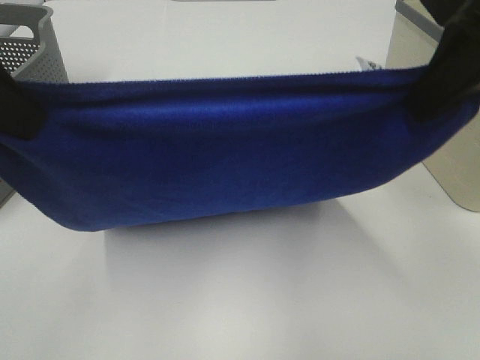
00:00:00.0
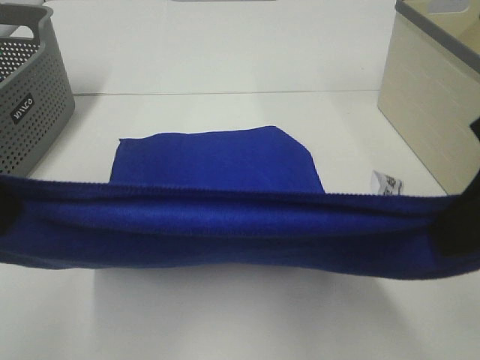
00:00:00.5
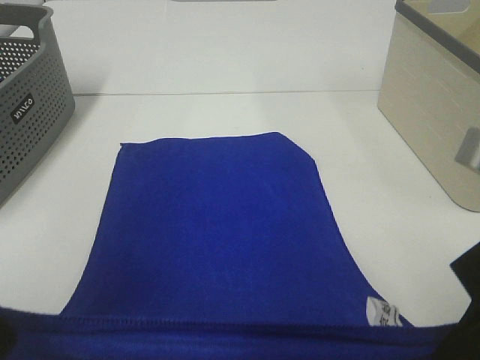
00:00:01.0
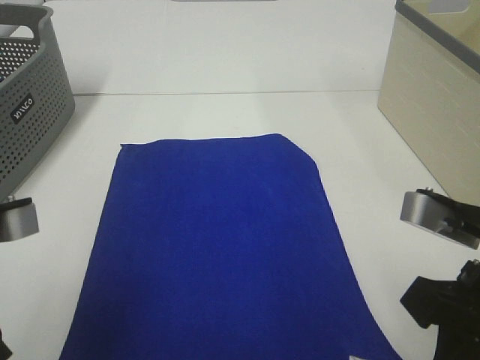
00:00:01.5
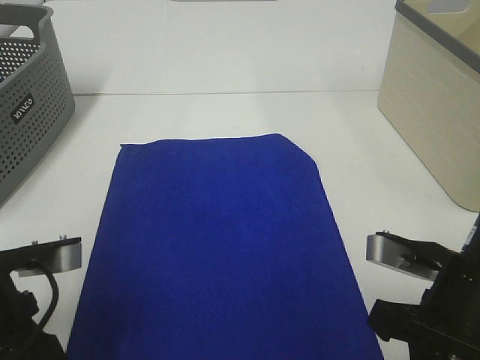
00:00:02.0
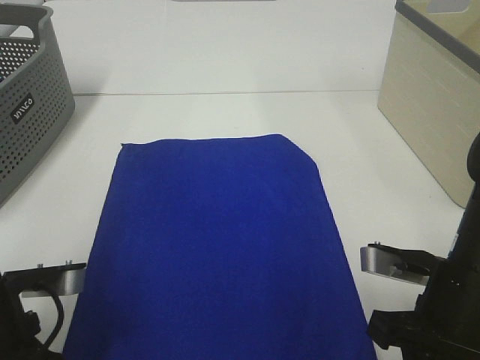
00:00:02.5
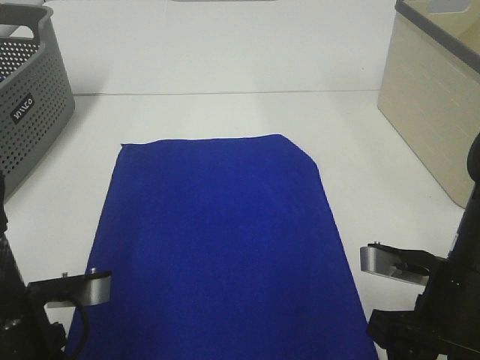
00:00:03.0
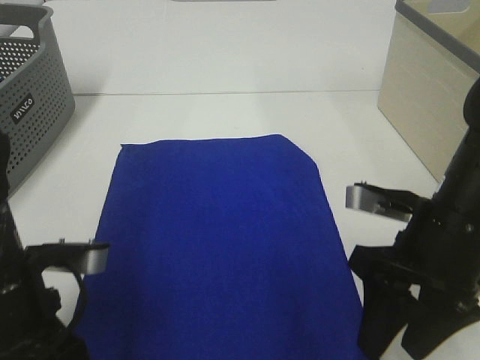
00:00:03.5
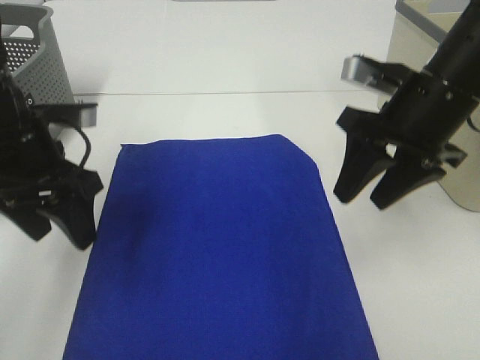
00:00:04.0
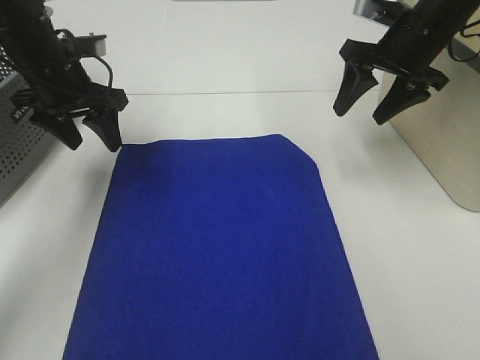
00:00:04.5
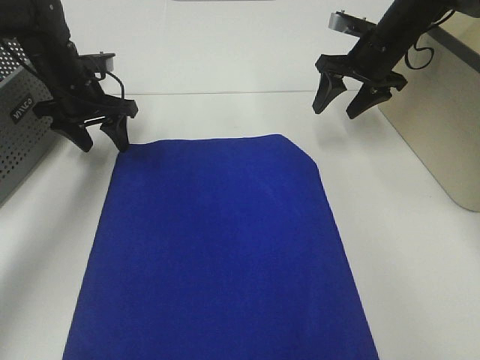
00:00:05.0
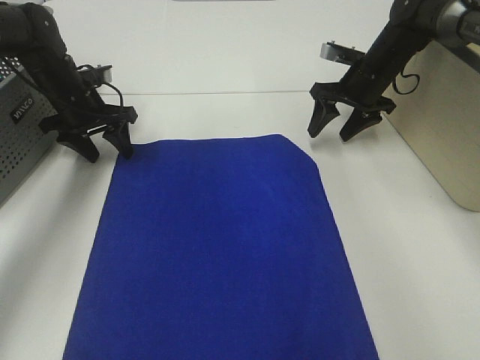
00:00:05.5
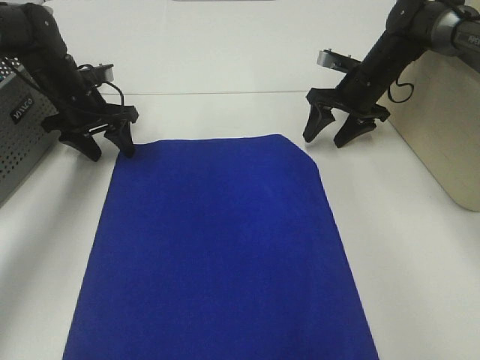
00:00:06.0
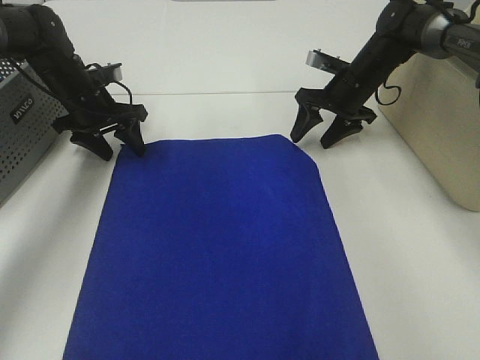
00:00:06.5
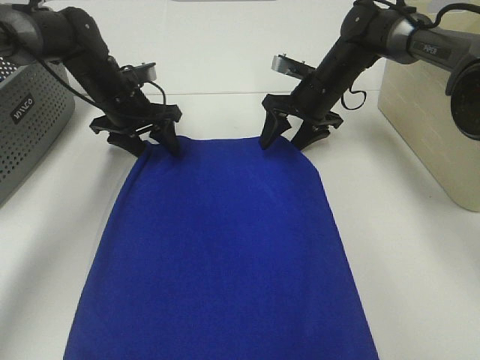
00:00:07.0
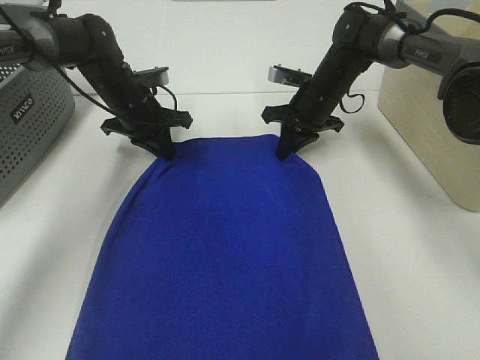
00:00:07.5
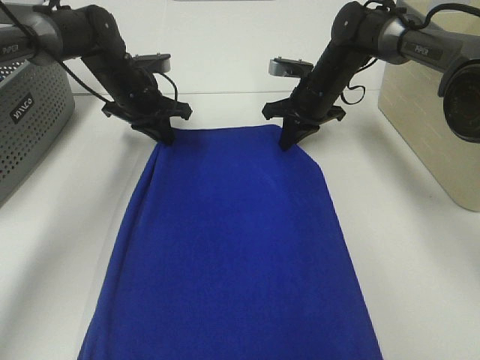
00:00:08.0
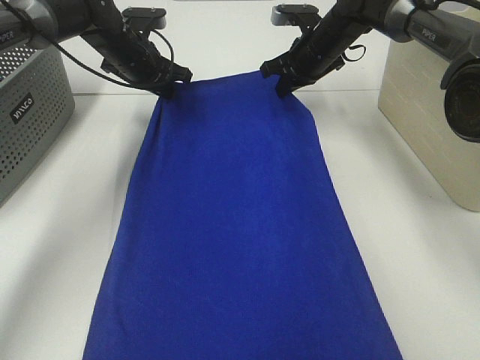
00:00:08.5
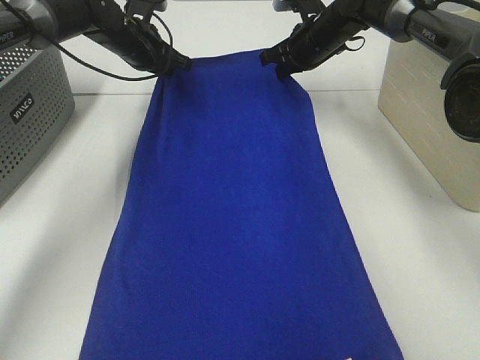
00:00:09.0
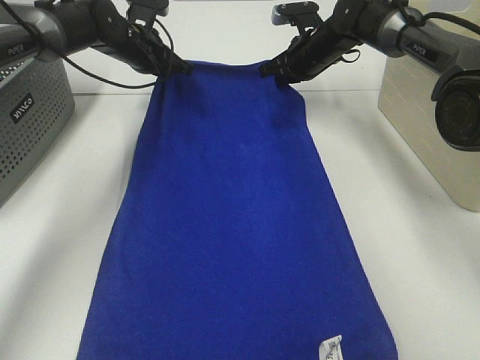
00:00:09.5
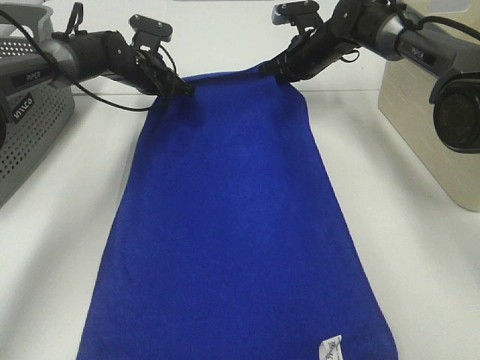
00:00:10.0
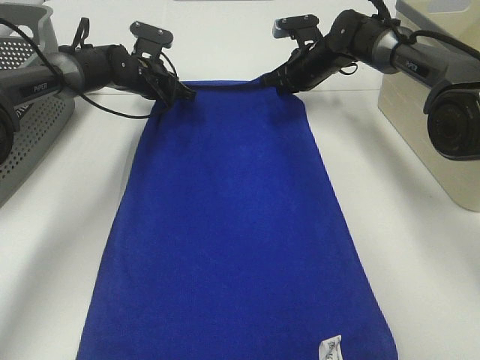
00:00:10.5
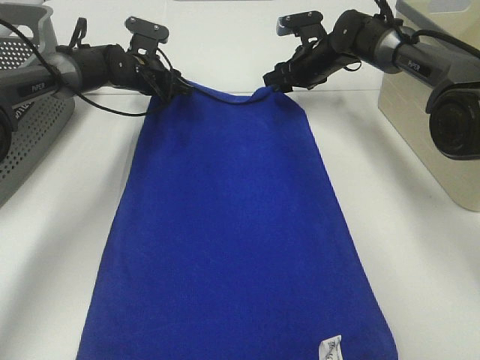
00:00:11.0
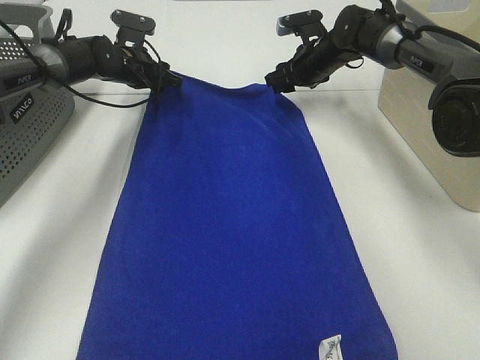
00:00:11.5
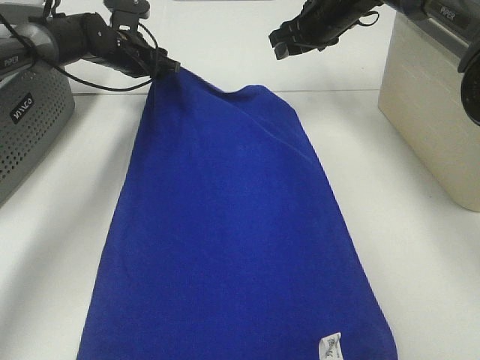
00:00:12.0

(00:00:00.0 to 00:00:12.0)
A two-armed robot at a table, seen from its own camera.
Task of the whole recording: Remove the towel and place it.
Step, 00:00:00.0 - 00:00:05.0: Left hand:adjust the blue towel.
Step, 00:00:00.0 - 00:00:05.0: Right hand:adjust the blue towel.
00:00:00.0 - 00:00:02.0: The grippers both shift downward by about 20 cm.
00:00:02.0 - 00:00:04.0: The left gripper travels forward by roughly 15 cm, and opens. The right gripper moves forward and upward, roughly 15 cm, and opens its fingers.
00:00:04.0 - 00:00:06.0: Both grippers move forward and downward, about 25 cm.
00:00:06.0 - 00:00:08.0: The left gripper goes about 10 cm to the right, and closes its fingers; the right gripper travels to the left by about 5 cm, and closes up.
00:00:08.0 - 00:00:10.0: Both grippers travel together forward, about 5 cm.
00:00:10.0 - 00:00:12.0: The right gripper heads upward, covering roughly 5 cm, and opens its fingers. Meanwhile the left gripper opens up.

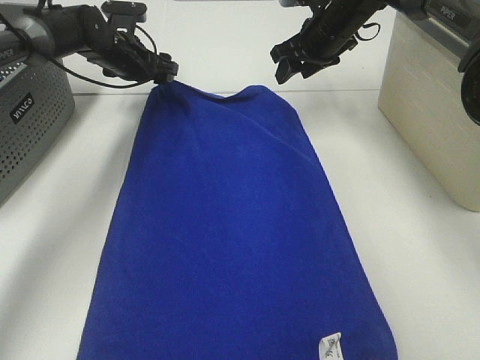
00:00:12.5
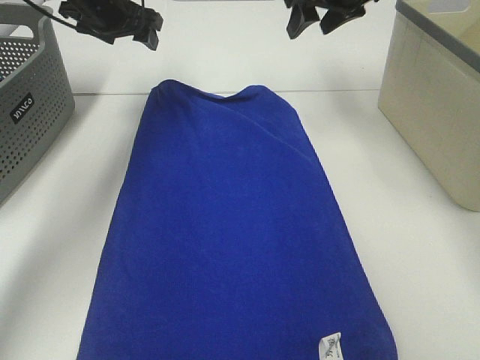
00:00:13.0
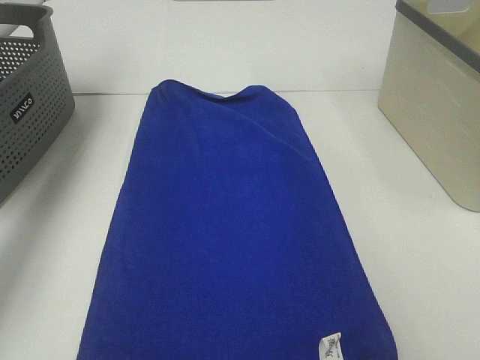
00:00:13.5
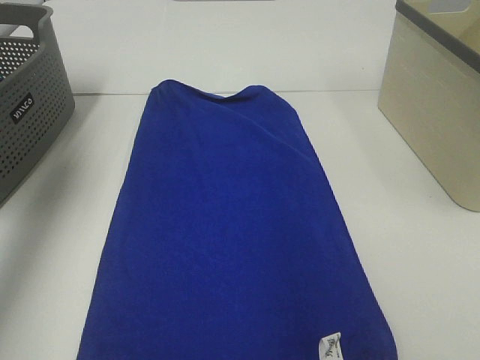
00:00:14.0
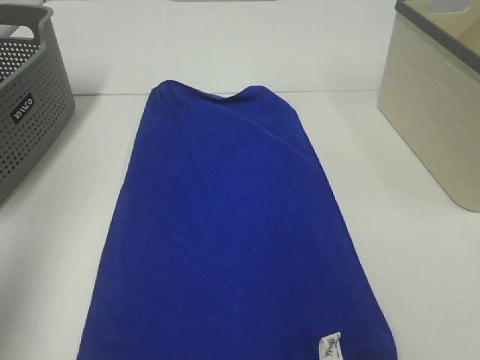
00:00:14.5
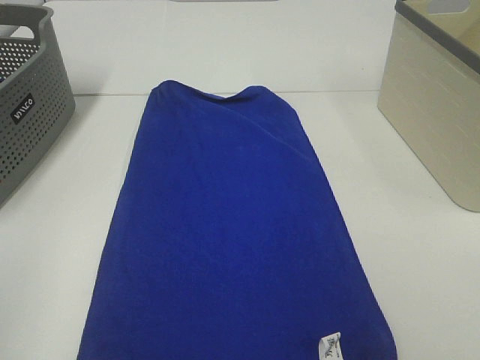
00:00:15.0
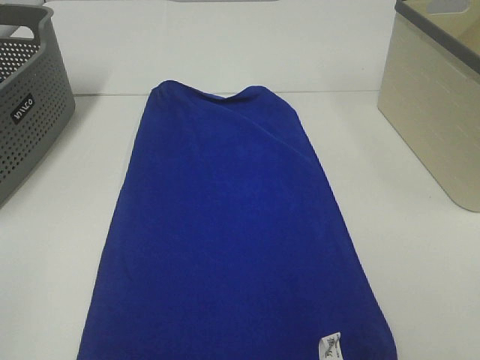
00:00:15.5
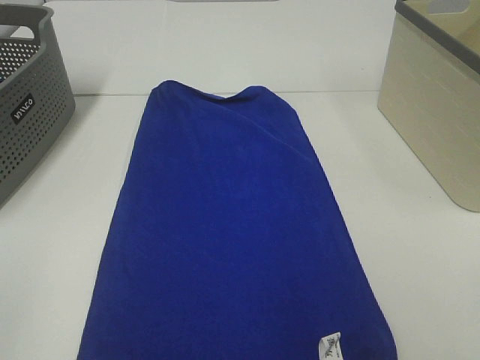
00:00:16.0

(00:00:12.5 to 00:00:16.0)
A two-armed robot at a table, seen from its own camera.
Task of the whole recording: Remove the towel and place it.
00:00:12.5 - 00:00:14.5: Both grippers move backward and upward, approximately 50 cm.
00:00:14.5 - 00:00:16.0: The left gripper travels backward and downward by some 20 cm.

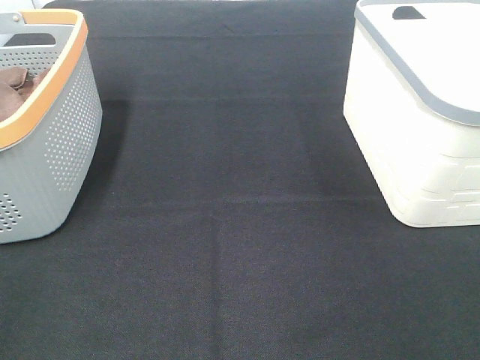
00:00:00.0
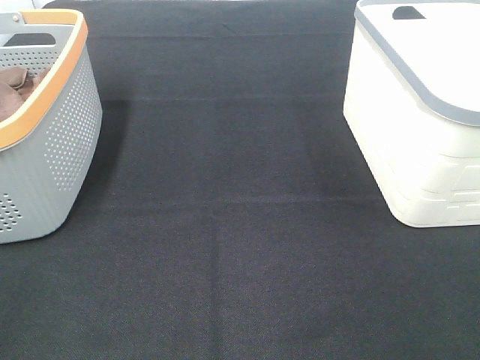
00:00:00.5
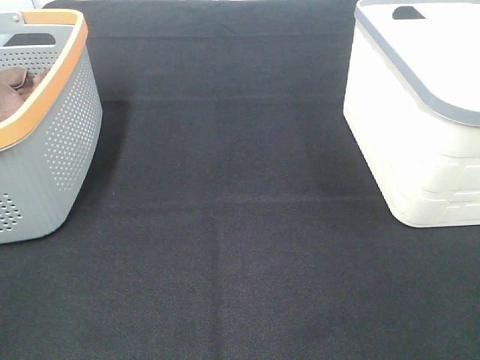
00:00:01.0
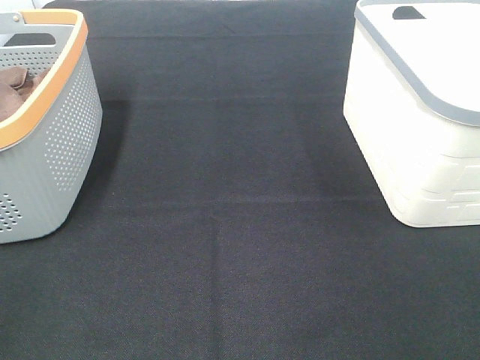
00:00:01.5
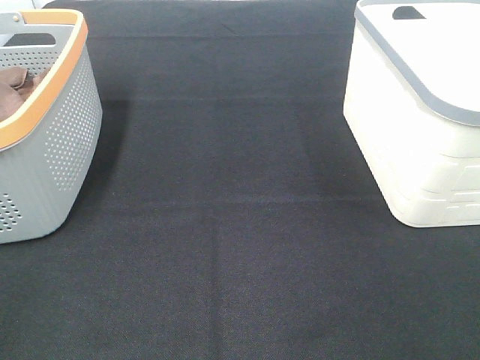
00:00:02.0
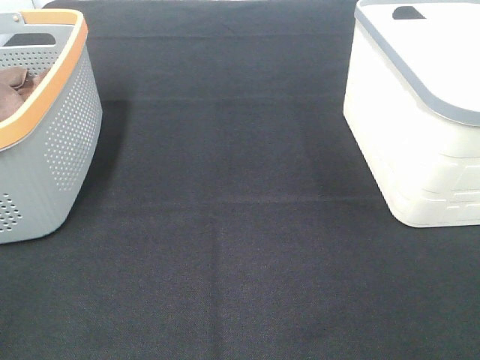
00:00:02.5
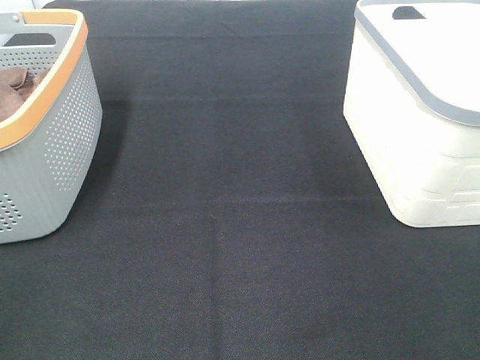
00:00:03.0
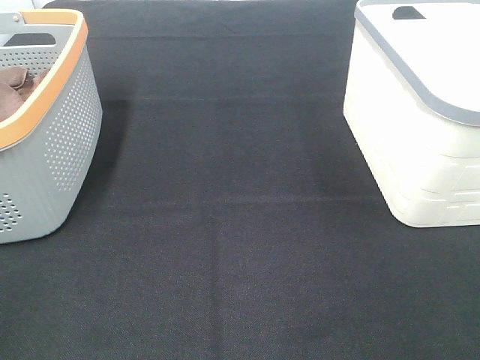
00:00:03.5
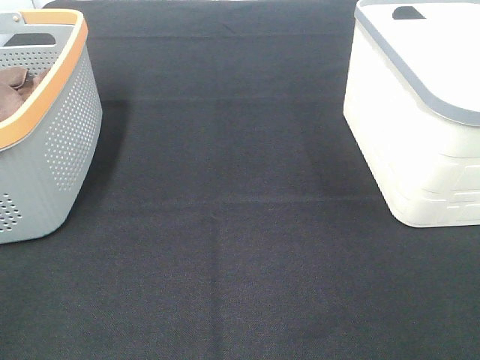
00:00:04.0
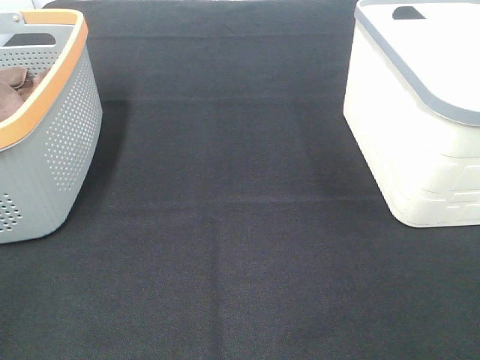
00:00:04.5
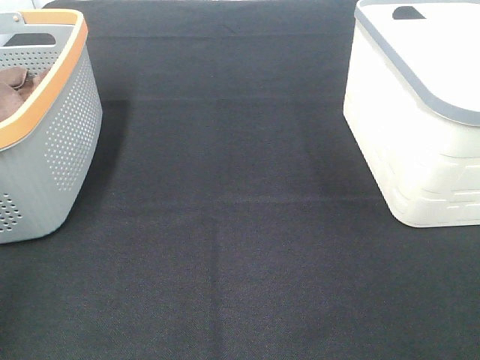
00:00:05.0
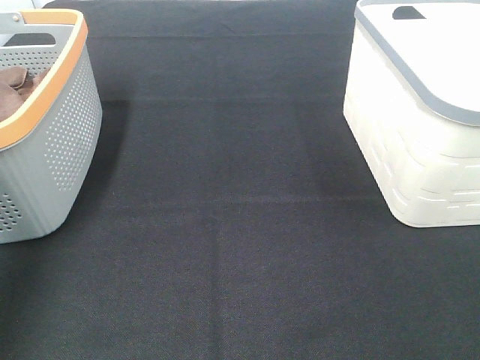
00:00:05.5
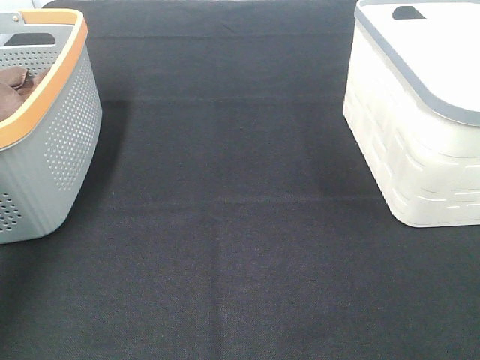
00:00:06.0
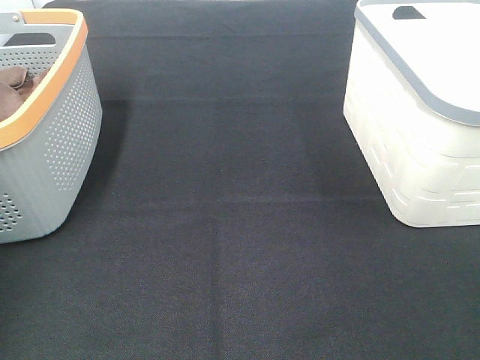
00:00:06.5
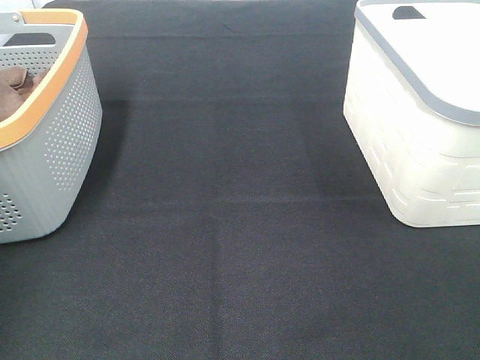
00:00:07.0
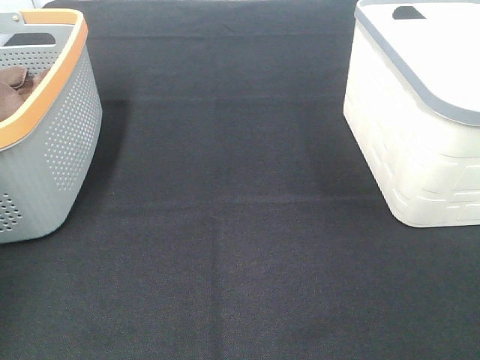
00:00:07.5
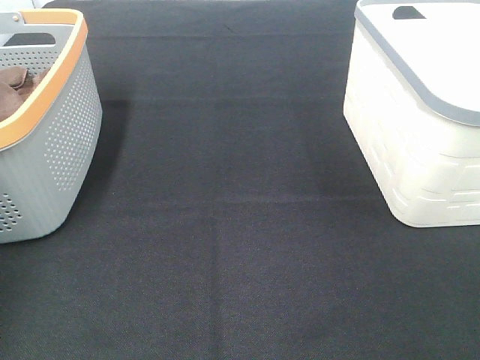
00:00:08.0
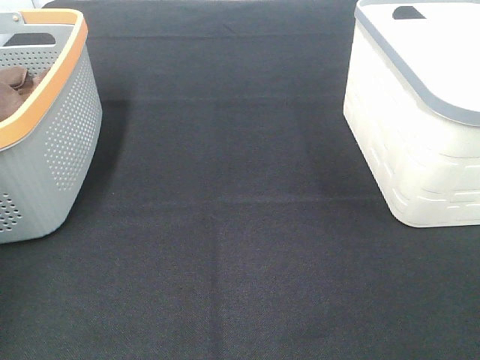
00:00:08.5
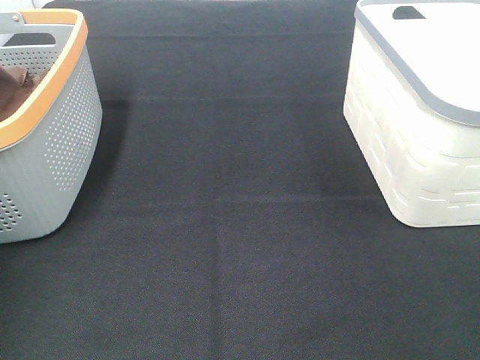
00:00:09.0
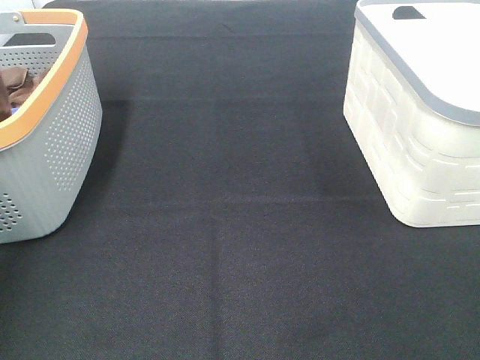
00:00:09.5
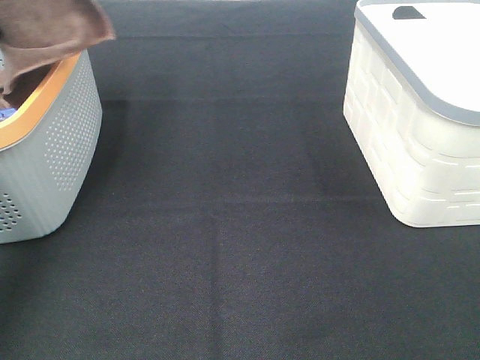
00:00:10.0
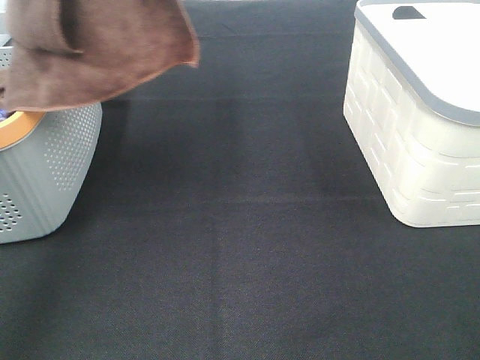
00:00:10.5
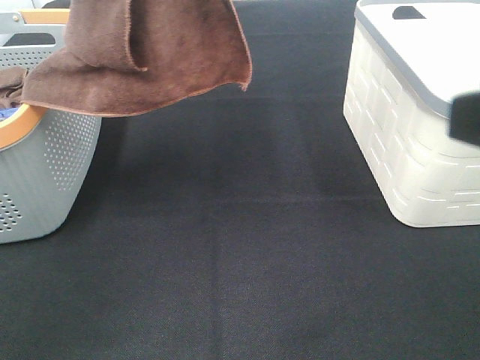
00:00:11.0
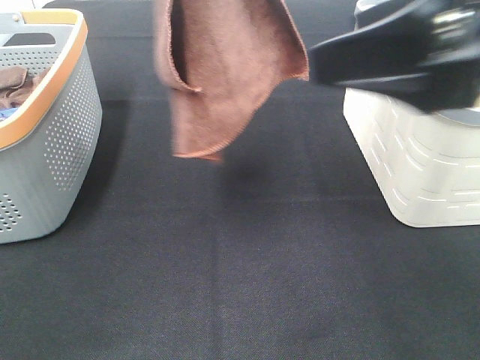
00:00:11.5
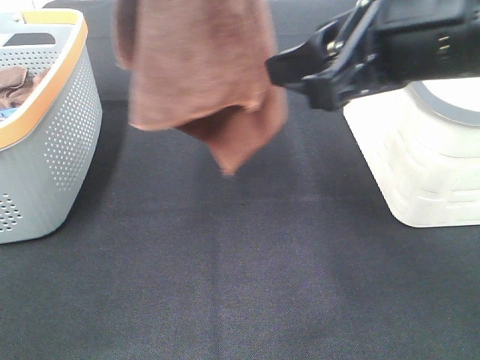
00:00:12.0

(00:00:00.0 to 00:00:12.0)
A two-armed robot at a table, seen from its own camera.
Task of the whole recording: Remove the towel and place it.
00:00:00.0 - 00:00:04.0: Both grippers stay about where they are.
00:00:04.0 - 00:00:06.0: The left gripper is displaced forward by some 35 cm.
00:00:08.0 - 00:00:10.0: The left gripper heads upward and to the right, covering some 25 cm.
00:00:10.0 - 00:00:12.0: The right gripper moves forward and to the left, about 25 cm. The left gripper goes some 15 cm to the right.
